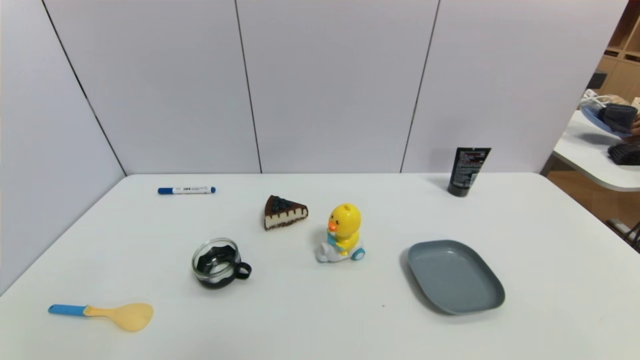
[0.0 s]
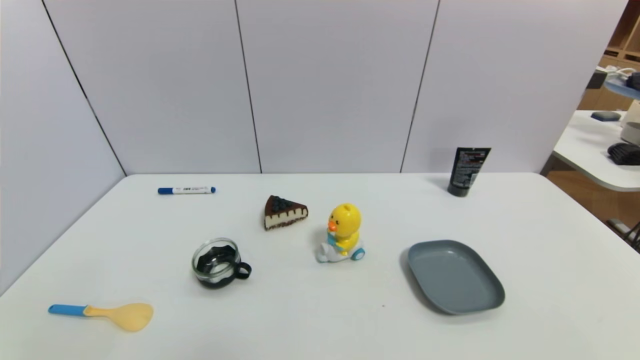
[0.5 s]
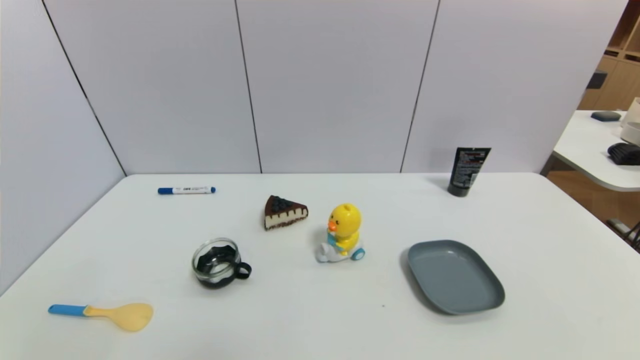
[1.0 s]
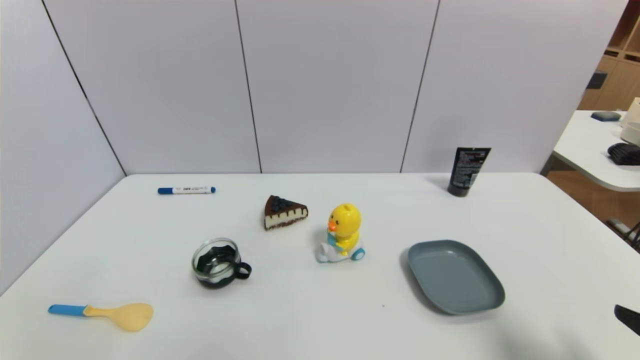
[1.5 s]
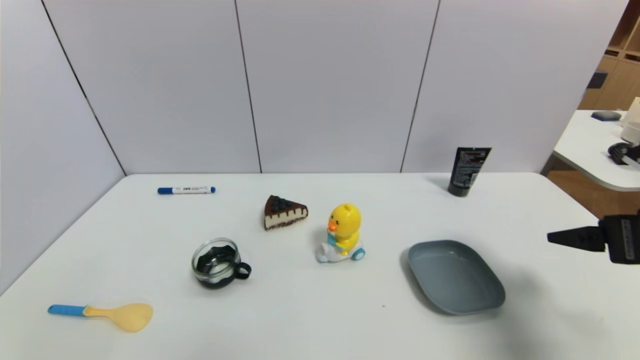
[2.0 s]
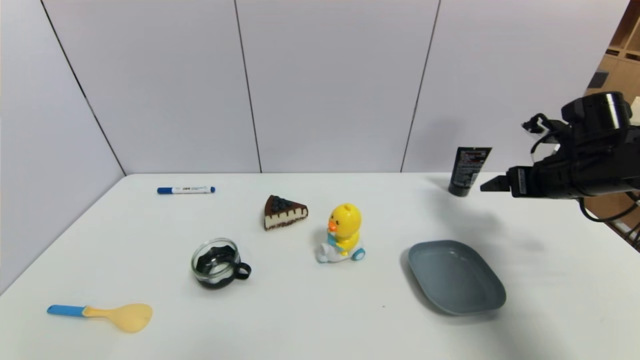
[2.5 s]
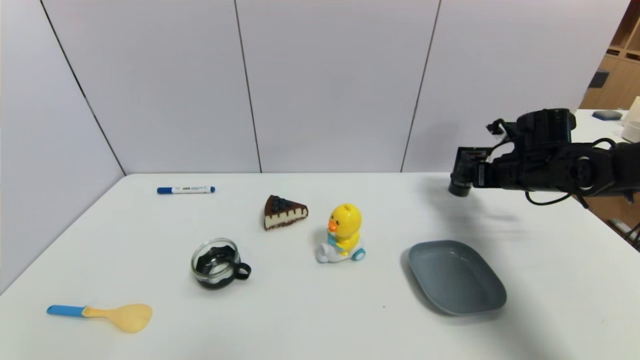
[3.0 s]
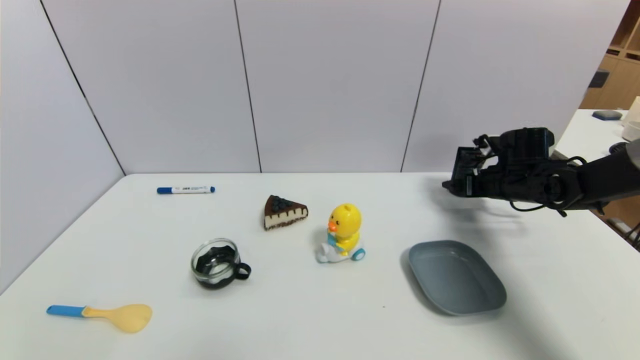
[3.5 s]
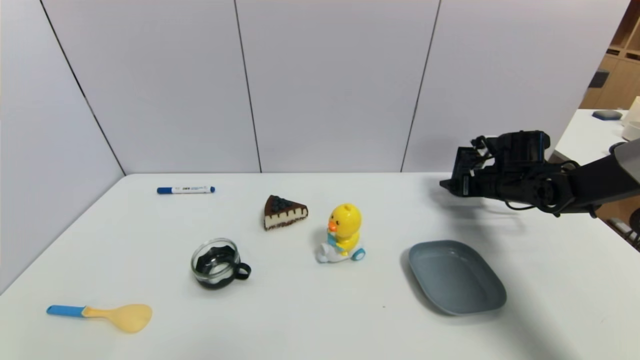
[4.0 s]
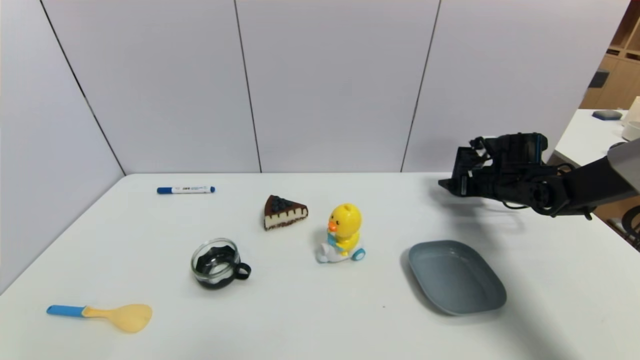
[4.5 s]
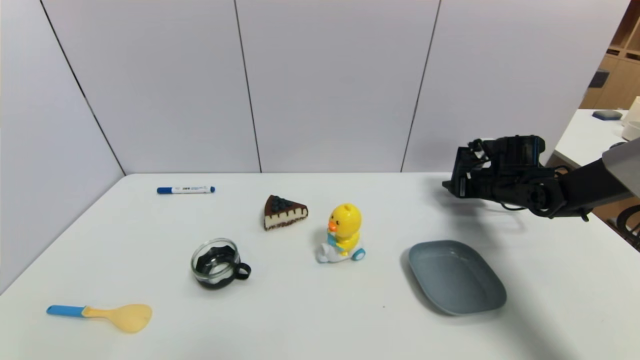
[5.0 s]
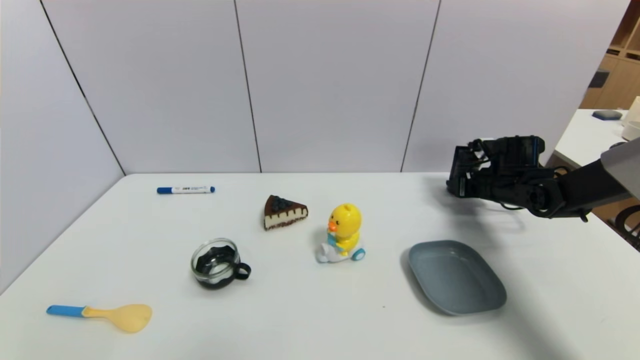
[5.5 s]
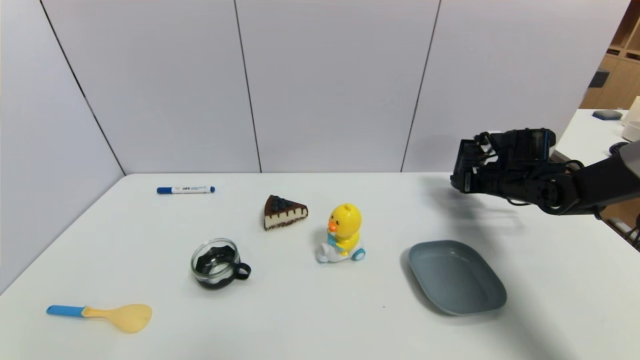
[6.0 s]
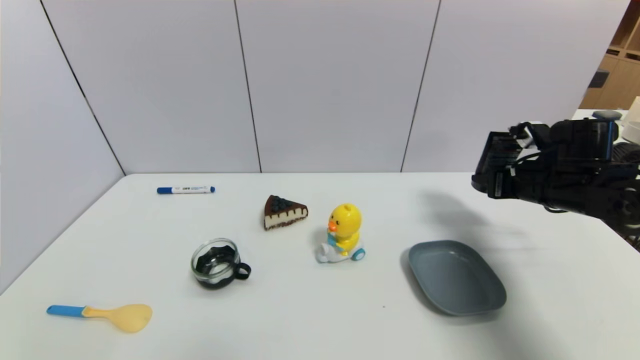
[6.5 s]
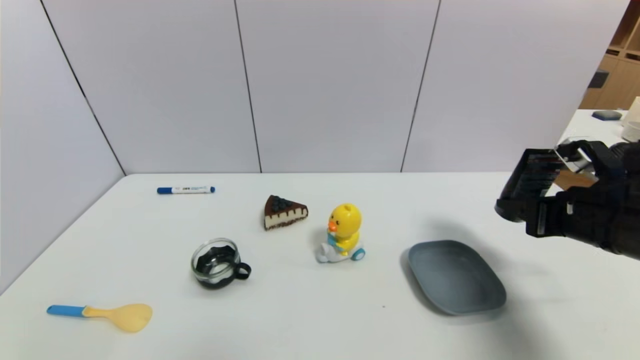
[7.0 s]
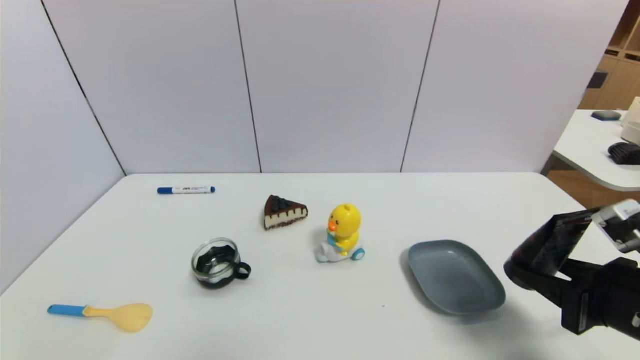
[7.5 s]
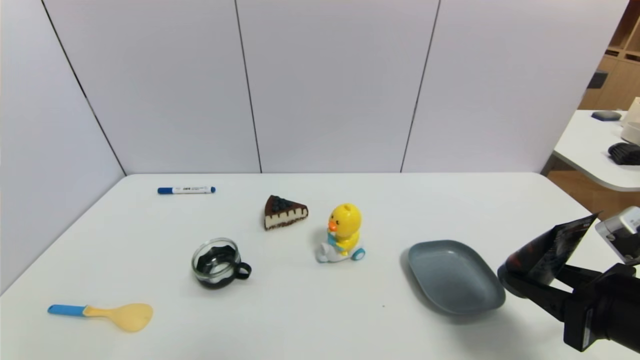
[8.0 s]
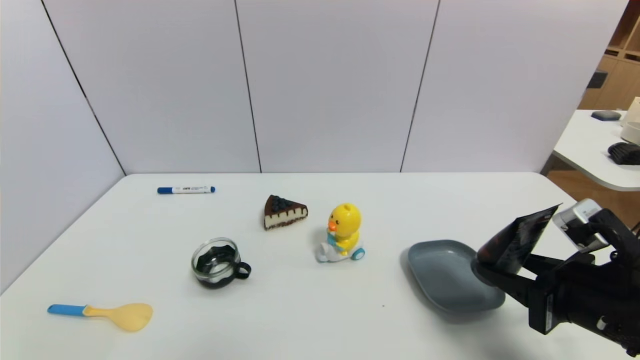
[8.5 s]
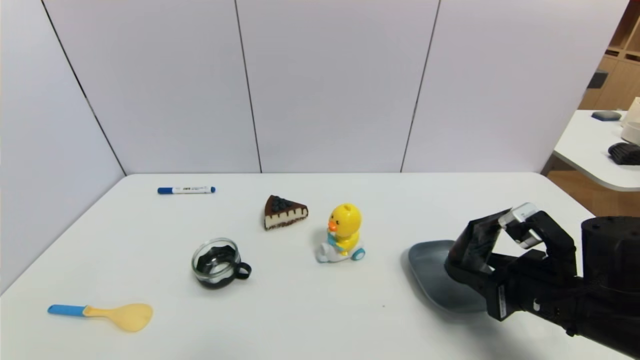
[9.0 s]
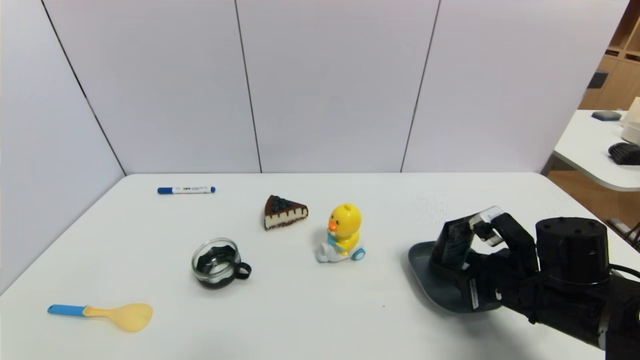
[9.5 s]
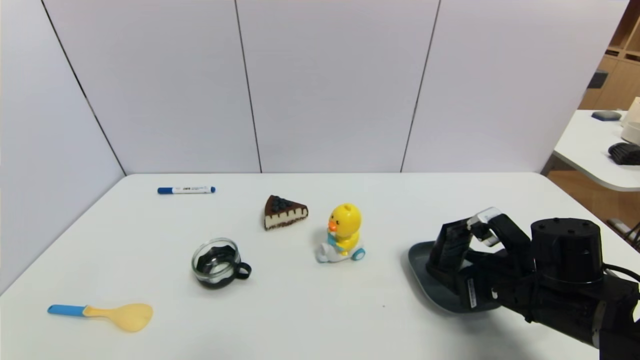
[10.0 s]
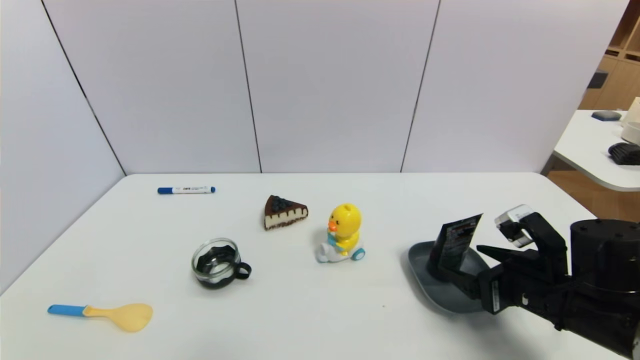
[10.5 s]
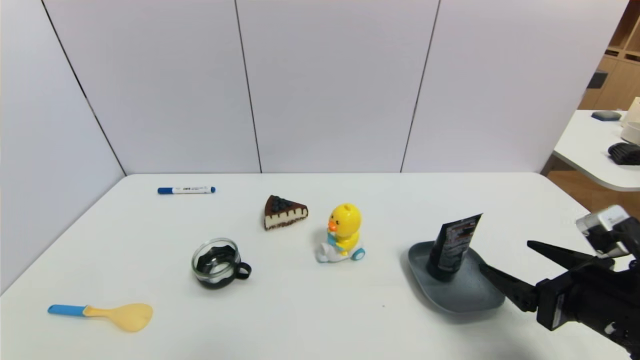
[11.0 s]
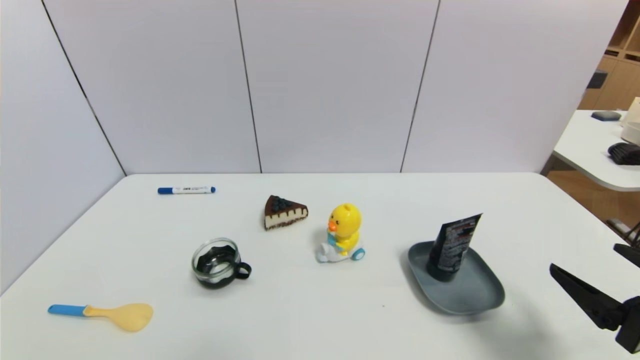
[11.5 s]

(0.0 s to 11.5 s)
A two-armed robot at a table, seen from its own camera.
Task of the whole recording: use a gripper to pick the target object and place on the dish.
Step, 0.0 s - 5.0 s: Grasp the soft facial cleanser with the right gripper.
Step, 5.5 s - 11.0 s: Place the soft facial cleanser on the dish with the right gripper.
0.0 s - 2.0 s: The right gripper goes approximately 25 cm forward and upward.
2.0 s - 4.0 s: The right gripper travels forward and downward by approximately 25 cm.
4.0 s - 6.0 s: The right gripper closes up.
6.0 s - 7.5 s: The right gripper moves backward, roughly 30 cm.
7.5 s - 9.5 s: The right gripper travels forward, downward and to the left by some 10 cm.
9.5 s - 11.5 s: The right gripper goes roughly 15 cm backward, to the right and upward, and opens its fingers.

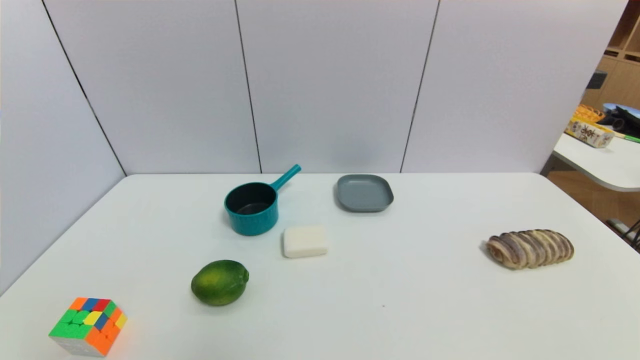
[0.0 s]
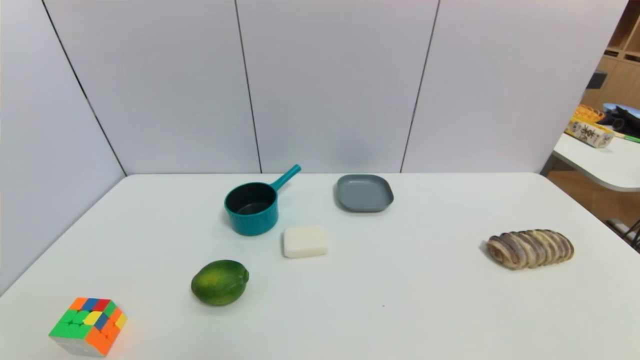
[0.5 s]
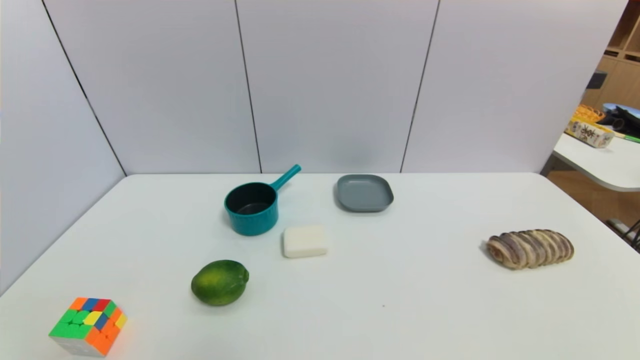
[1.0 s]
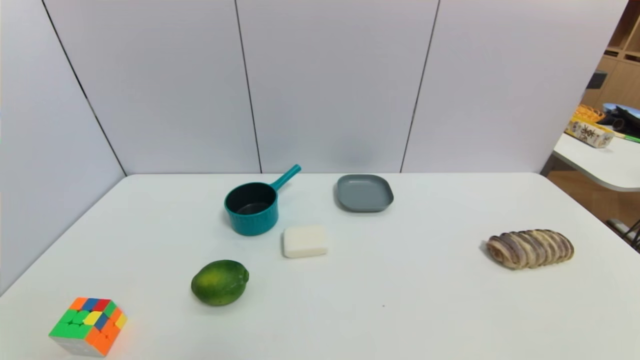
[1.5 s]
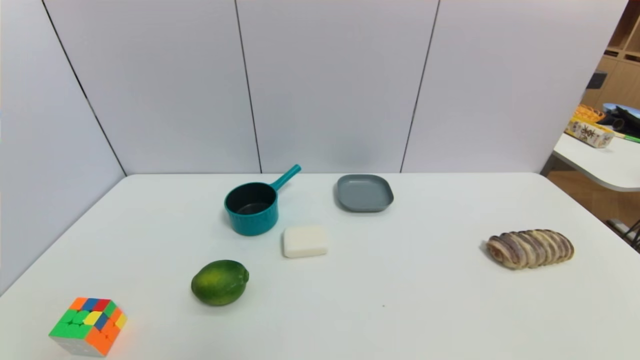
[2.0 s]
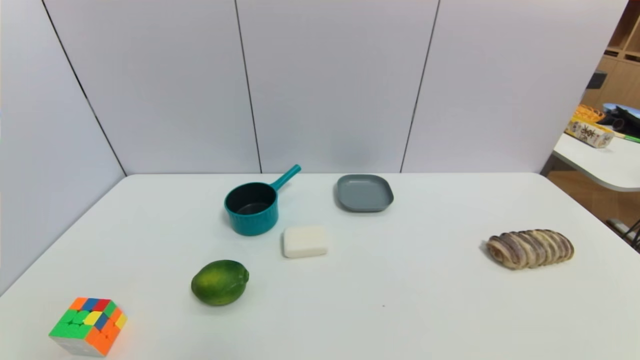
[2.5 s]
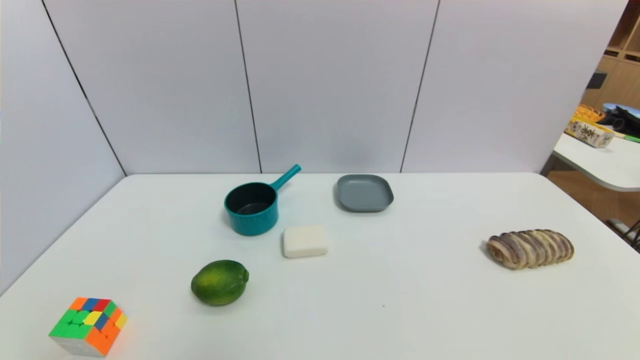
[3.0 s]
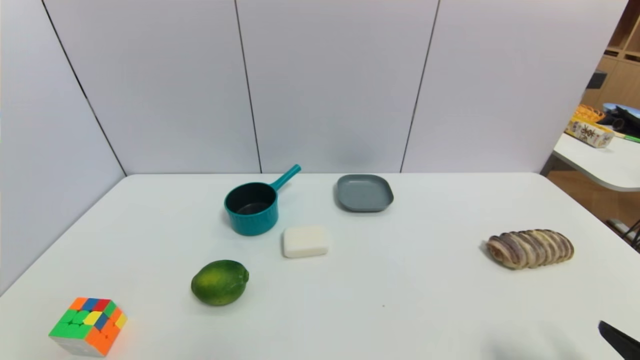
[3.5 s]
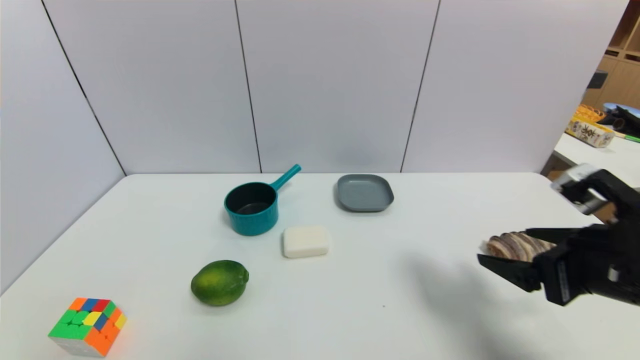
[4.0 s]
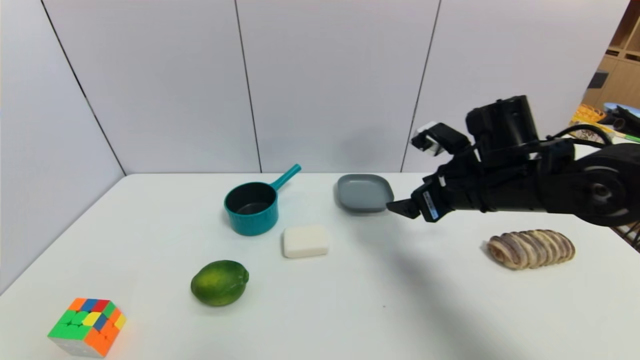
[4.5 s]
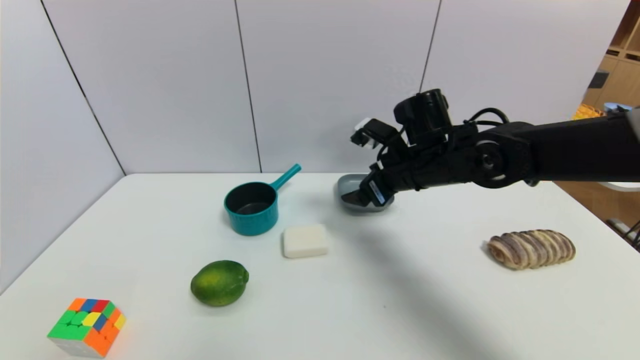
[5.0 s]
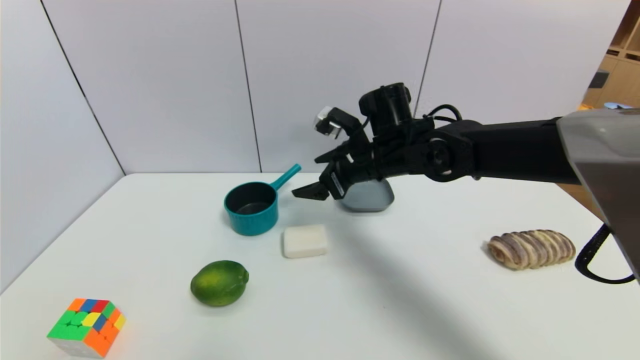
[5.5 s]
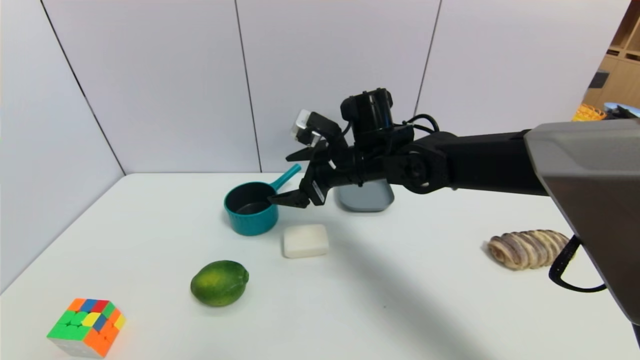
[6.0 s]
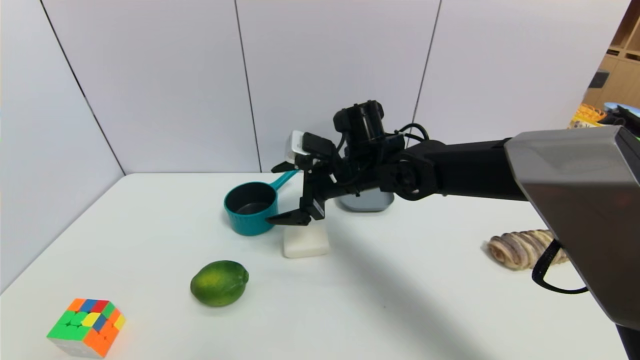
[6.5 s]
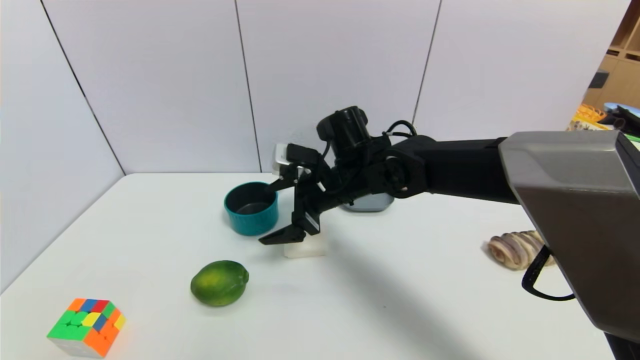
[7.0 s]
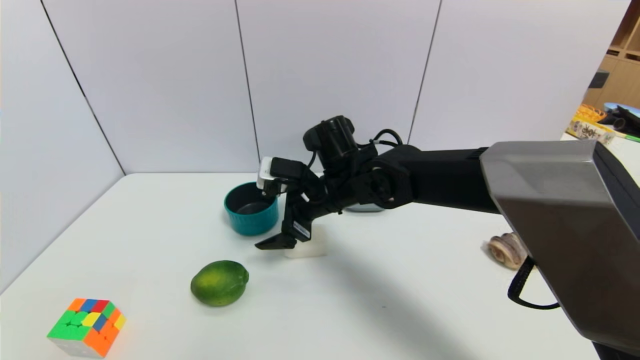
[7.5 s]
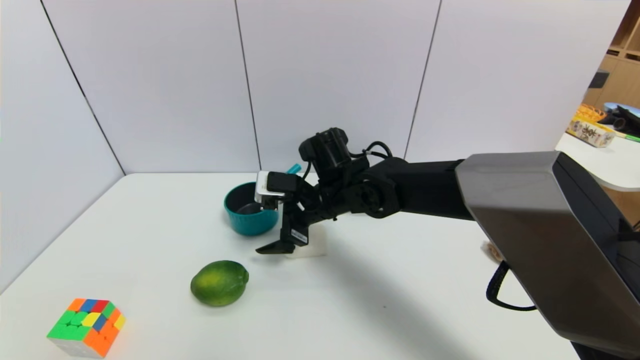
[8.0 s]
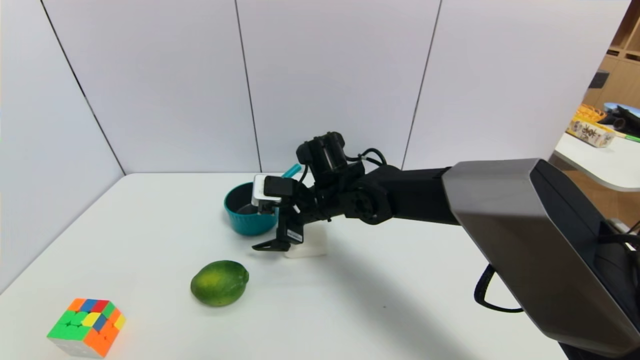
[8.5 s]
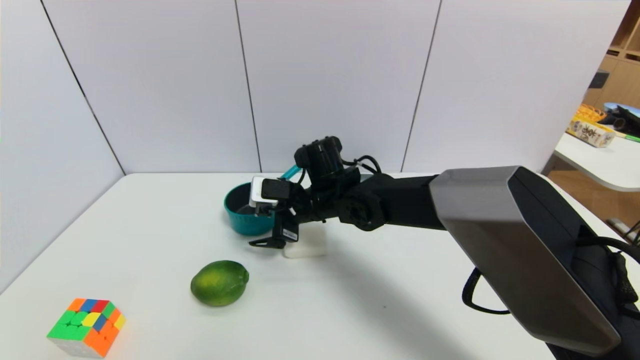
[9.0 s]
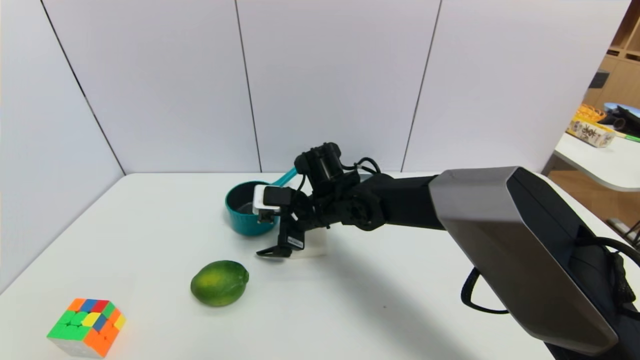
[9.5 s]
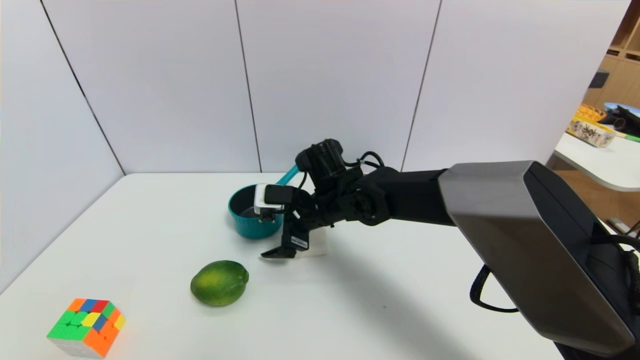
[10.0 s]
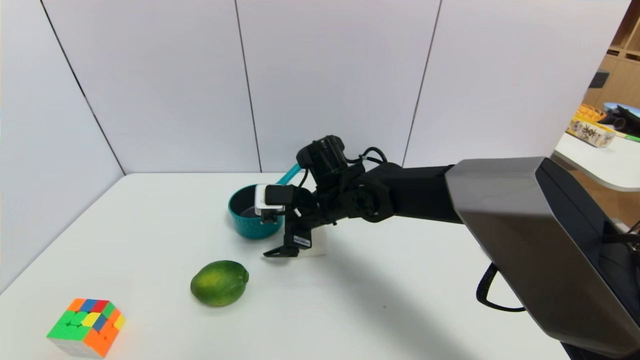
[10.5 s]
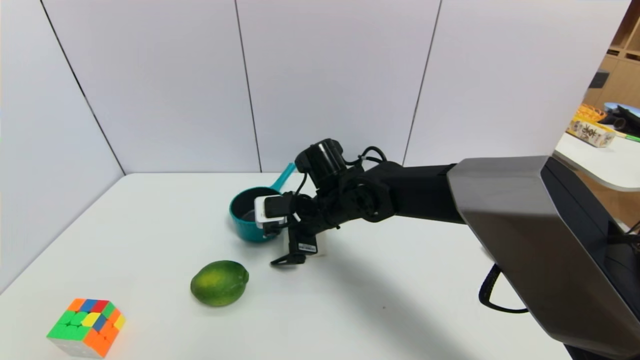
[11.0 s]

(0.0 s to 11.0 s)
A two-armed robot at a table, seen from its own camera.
Task of the whole recording: use a gripper to pick the target object and place on the dish.
0.0 s - 2.0 s: The two grippers keep their place.
2.0 s - 3.5 s: The right gripper shifts about 10 cm upward and forward.
3.5 s - 5.5 s: The right gripper travels forward and to the left by some 40 cm.
5.5 s - 7.5 s: The right gripper goes roughly 5 cm to the left.
7.5 s - 11.0 s: The grippers stay close to where they were, moving slightly.
